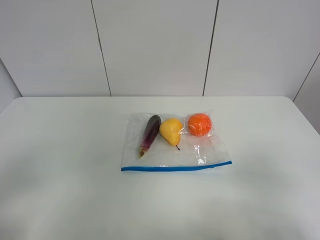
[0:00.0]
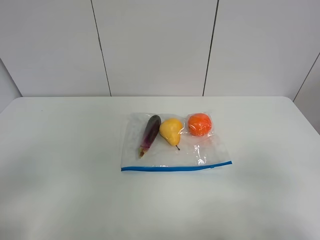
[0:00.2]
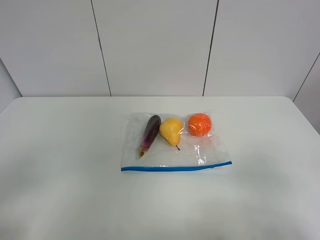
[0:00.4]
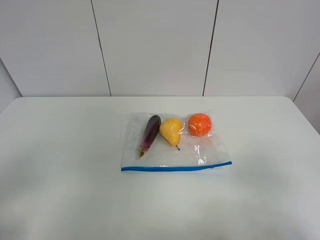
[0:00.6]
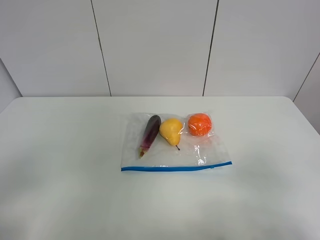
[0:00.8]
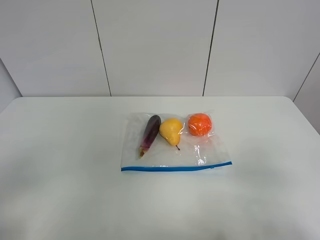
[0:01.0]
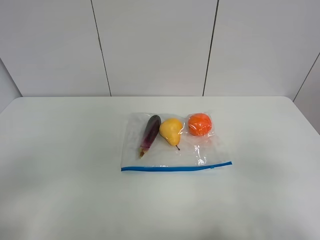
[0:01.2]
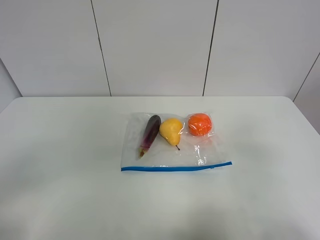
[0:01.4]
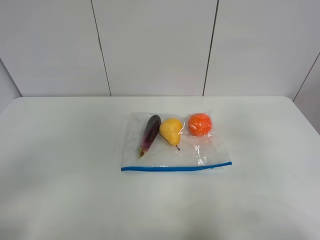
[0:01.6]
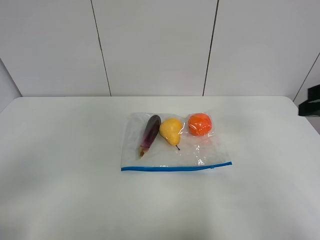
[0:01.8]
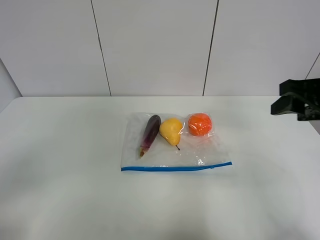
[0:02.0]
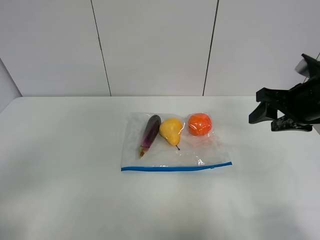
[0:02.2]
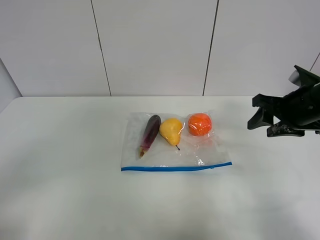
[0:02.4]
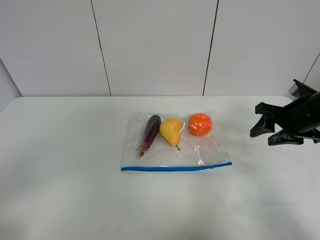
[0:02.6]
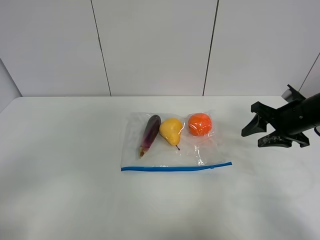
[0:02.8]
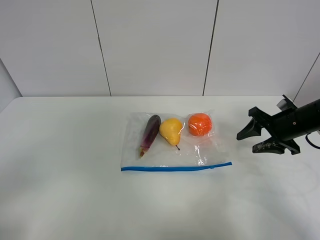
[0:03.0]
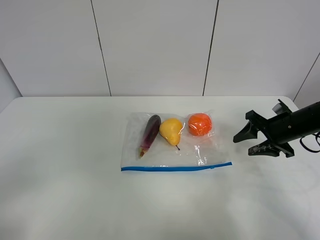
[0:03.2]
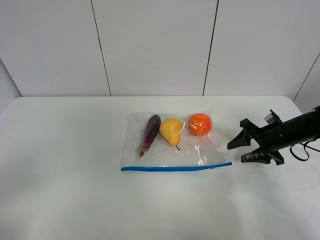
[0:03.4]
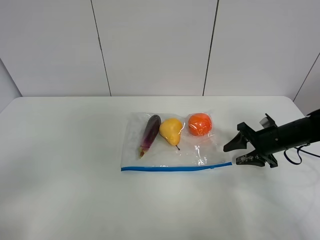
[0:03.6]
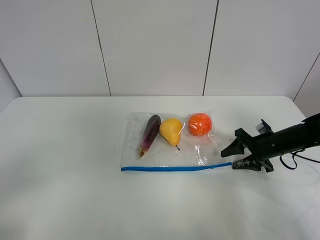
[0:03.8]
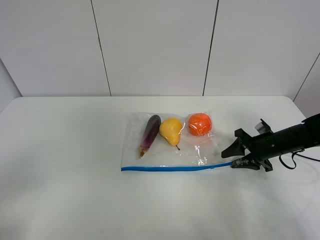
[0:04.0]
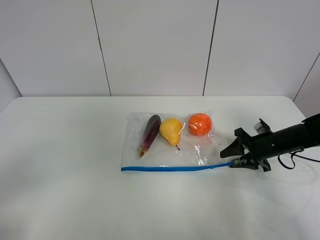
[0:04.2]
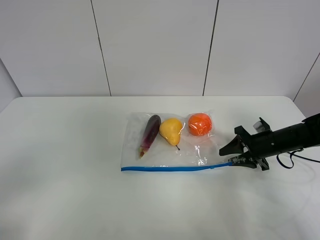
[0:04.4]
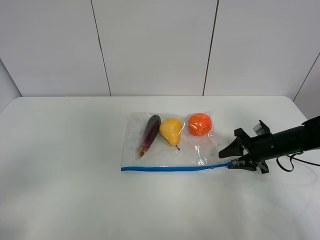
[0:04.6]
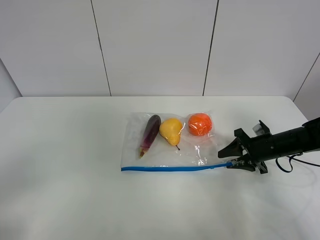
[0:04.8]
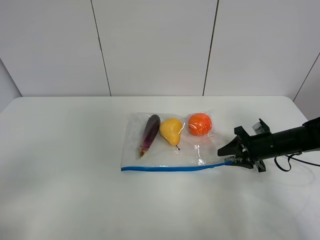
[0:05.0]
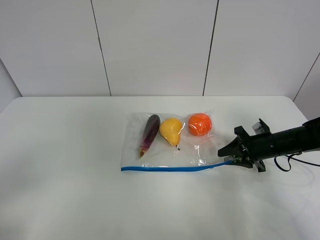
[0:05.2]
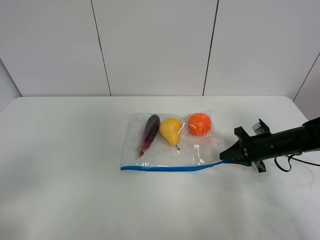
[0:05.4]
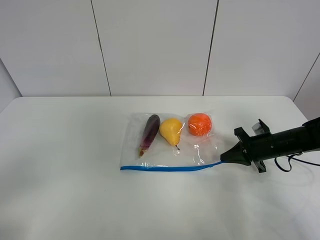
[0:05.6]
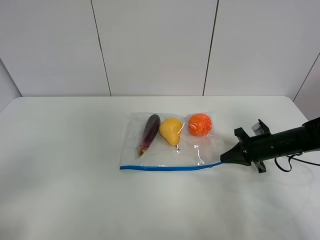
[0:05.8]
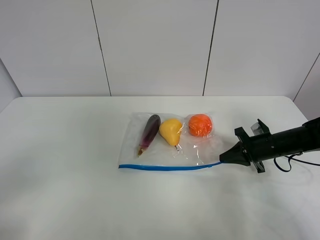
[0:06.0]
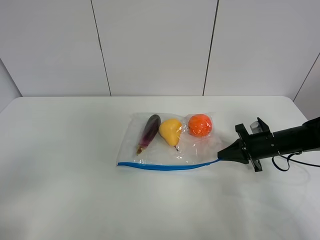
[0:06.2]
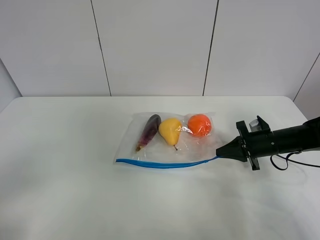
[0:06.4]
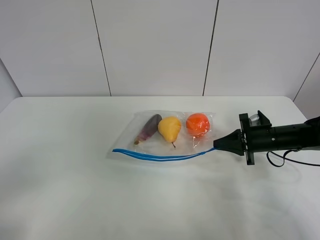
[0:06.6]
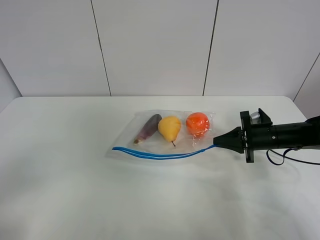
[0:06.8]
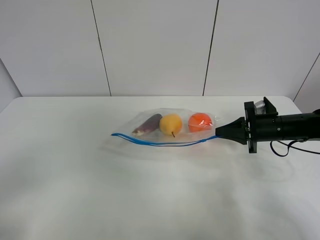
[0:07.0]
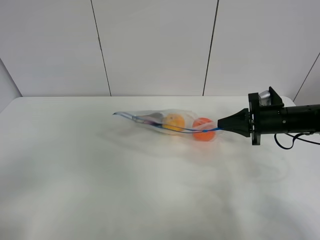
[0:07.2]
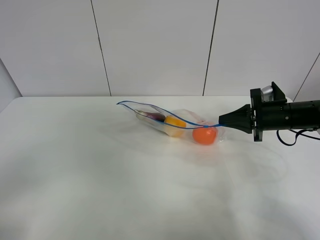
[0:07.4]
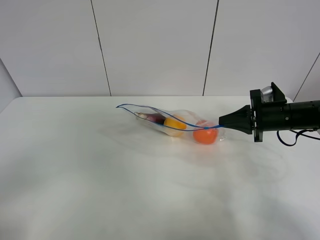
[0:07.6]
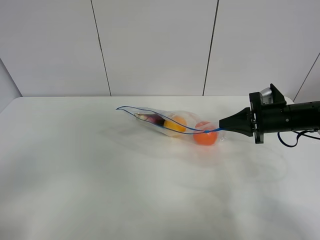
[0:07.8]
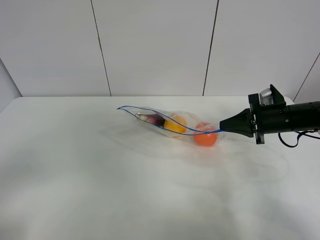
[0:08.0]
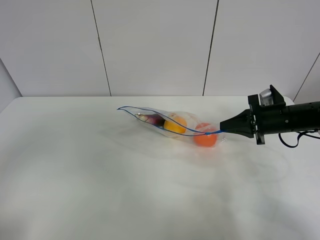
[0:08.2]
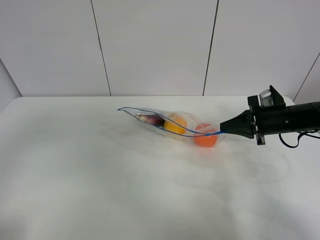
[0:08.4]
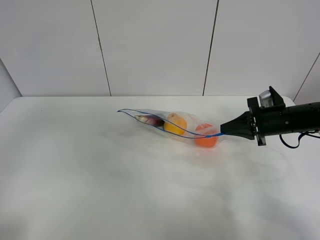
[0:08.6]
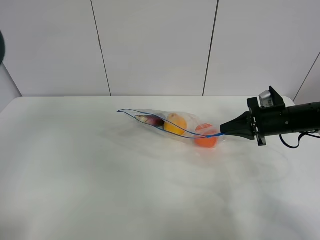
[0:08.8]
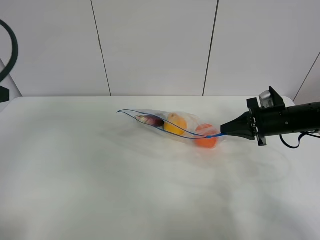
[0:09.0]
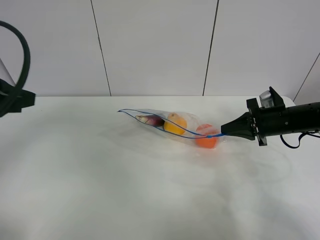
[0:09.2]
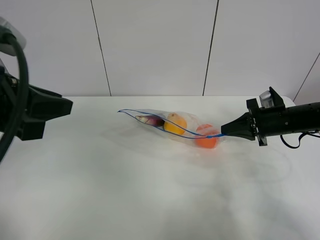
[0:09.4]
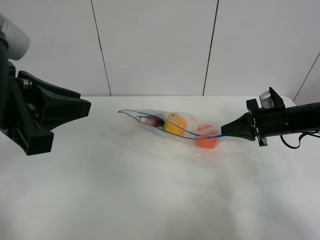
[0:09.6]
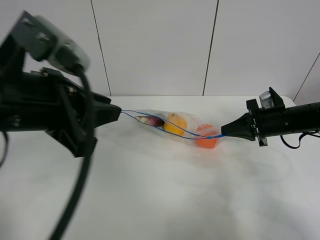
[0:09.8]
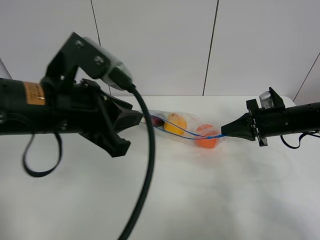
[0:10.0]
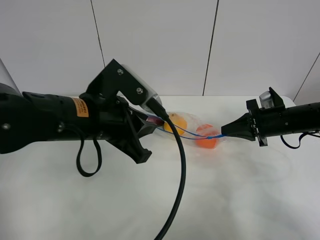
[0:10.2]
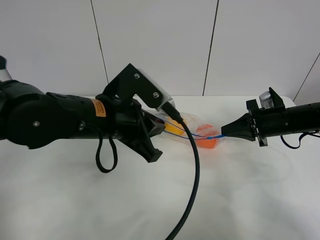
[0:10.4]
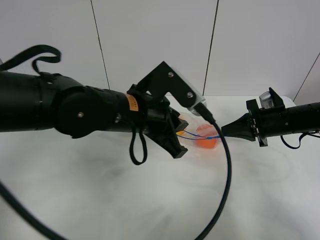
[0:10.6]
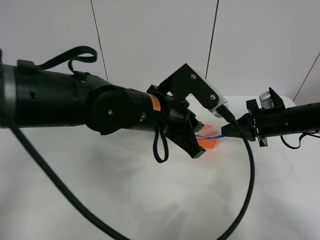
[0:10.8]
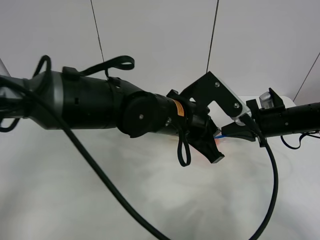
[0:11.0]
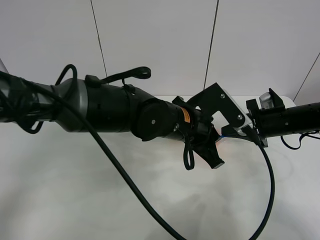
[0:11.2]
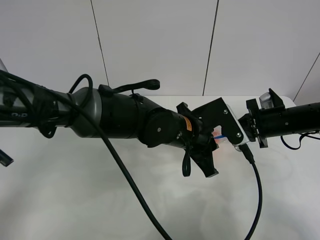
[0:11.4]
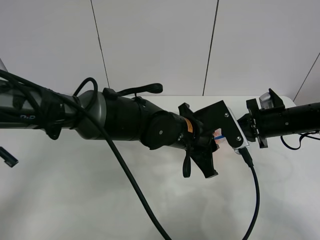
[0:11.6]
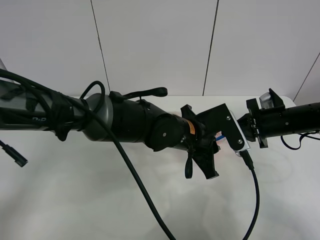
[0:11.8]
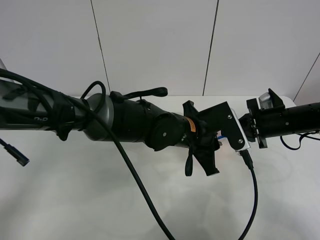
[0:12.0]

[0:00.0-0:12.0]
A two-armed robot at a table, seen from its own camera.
Step, 0:00.0 to 0:05.6: Grasp the fruit bag with right gripper.
Step, 0:05.8 to 0:07.4: Lift the fruit bag with your right gripper.
0:00.0 to 0:01.6: The right gripper goes some 15 cm forward.
0:01.6 to 0:03.0: The right gripper is displaced forward and downward by some 25 cm.
0:03.0 to 0:04.4: The right gripper is displaced downward by roughly 10 cm.
0:04.4 to 0:06.0: The right gripper closes up.
0:06.0 to 0:07.6: The right gripper travels upward by approximately 10 cm.
0:07.6 to 0:09.0: The left gripper goes some 20 cm forward.
0:09.0 to 0:10.4: The left gripper heads to the right and downward, covering approximately 25 cm.
0:10.4 to 0:12.0: The left gripper moves to the right and downward, roughly 15 cm.

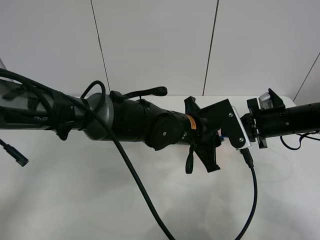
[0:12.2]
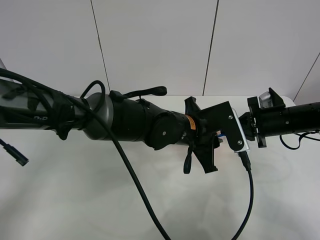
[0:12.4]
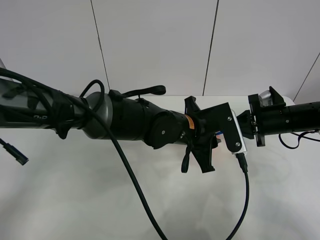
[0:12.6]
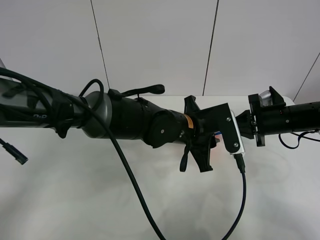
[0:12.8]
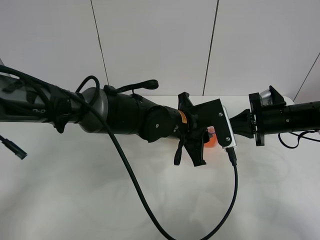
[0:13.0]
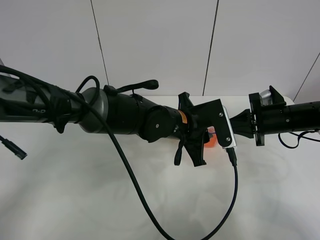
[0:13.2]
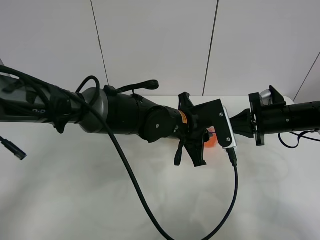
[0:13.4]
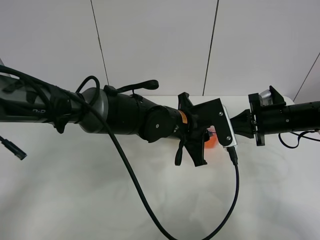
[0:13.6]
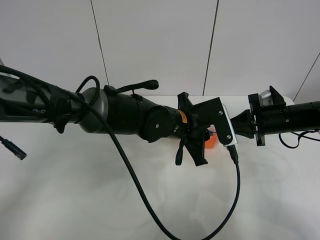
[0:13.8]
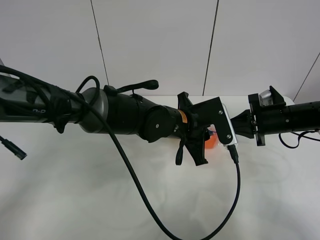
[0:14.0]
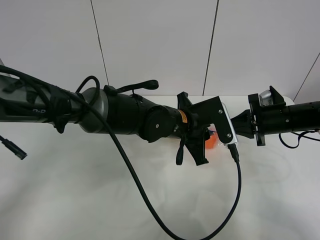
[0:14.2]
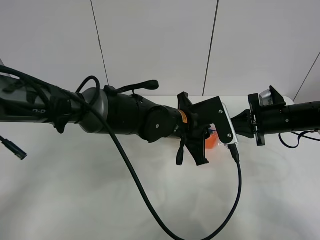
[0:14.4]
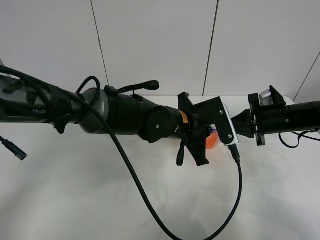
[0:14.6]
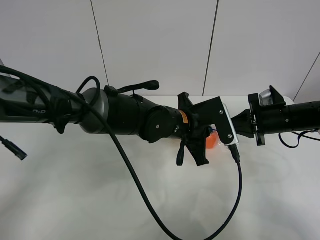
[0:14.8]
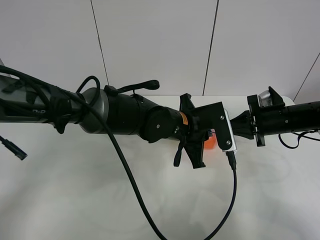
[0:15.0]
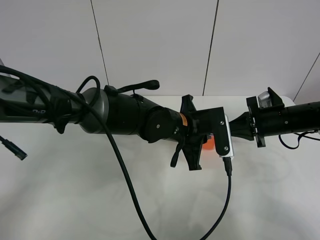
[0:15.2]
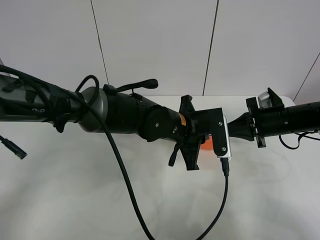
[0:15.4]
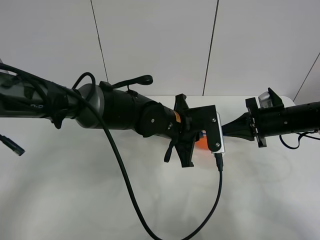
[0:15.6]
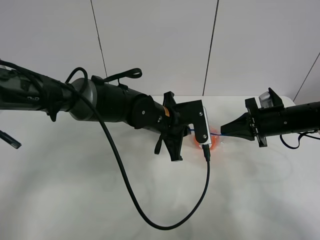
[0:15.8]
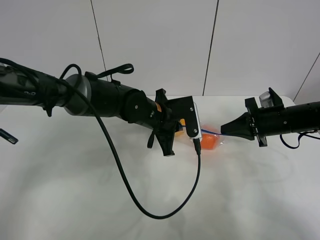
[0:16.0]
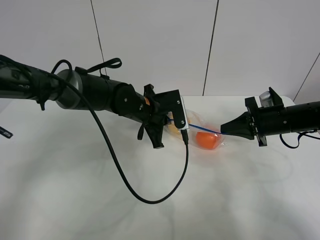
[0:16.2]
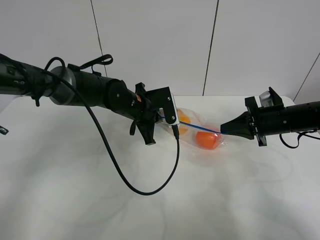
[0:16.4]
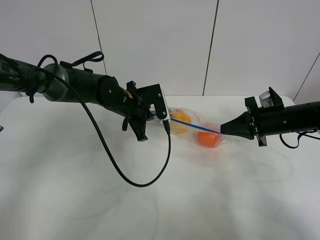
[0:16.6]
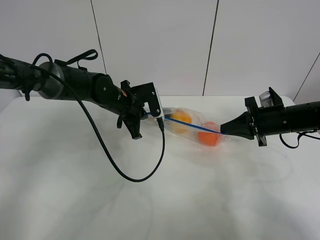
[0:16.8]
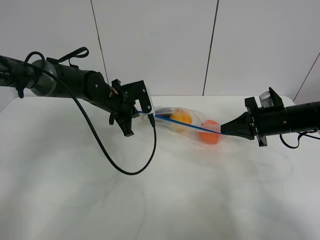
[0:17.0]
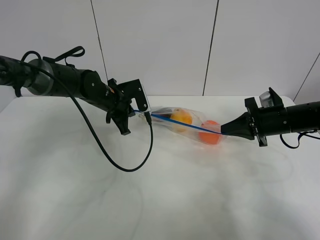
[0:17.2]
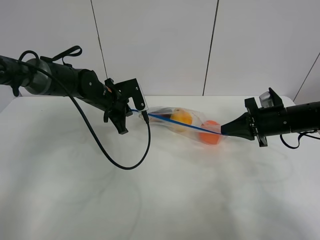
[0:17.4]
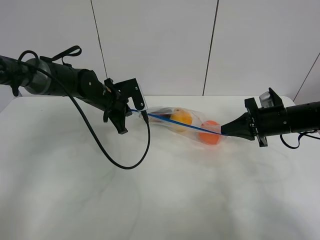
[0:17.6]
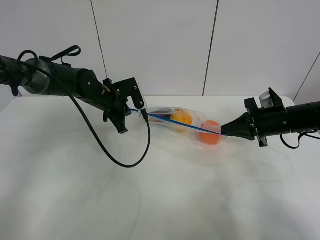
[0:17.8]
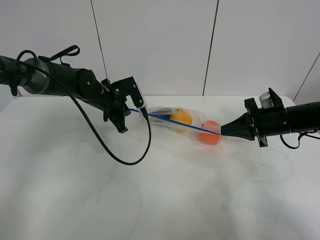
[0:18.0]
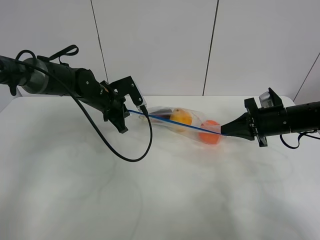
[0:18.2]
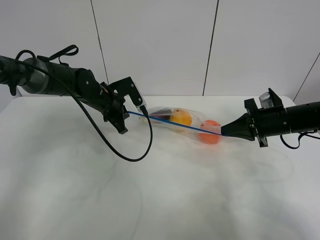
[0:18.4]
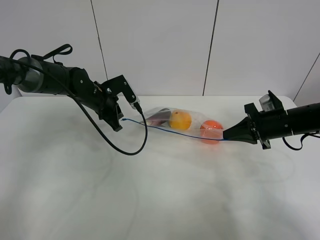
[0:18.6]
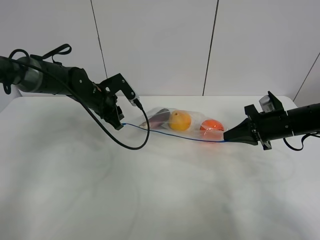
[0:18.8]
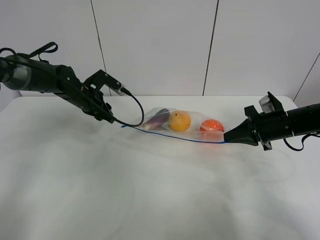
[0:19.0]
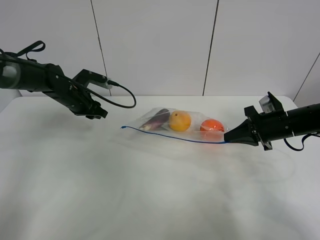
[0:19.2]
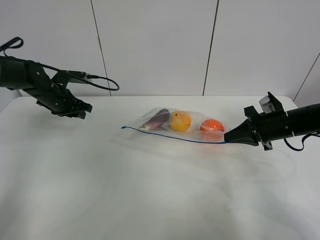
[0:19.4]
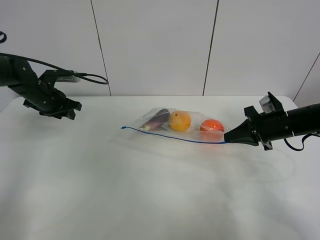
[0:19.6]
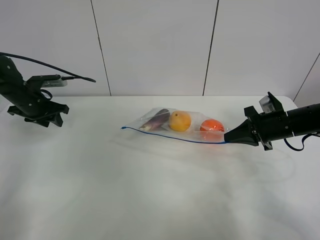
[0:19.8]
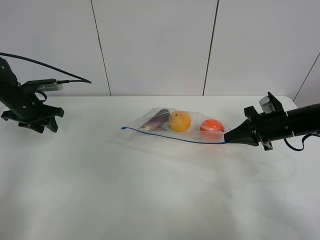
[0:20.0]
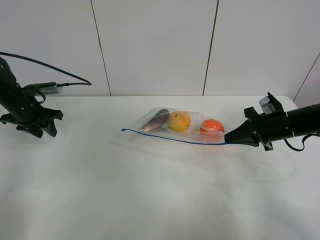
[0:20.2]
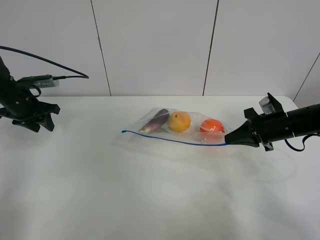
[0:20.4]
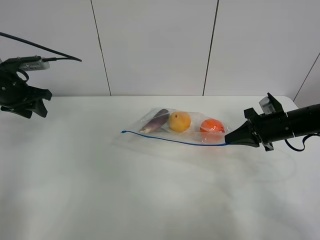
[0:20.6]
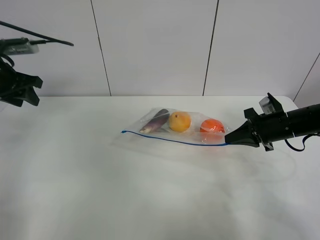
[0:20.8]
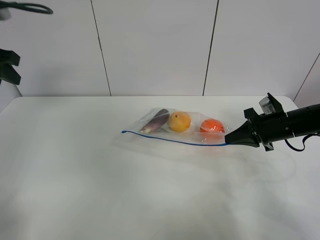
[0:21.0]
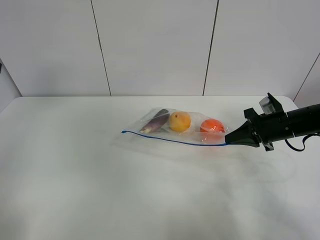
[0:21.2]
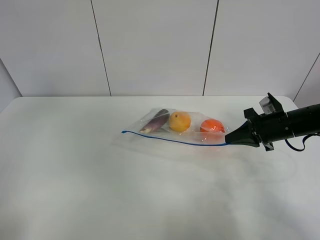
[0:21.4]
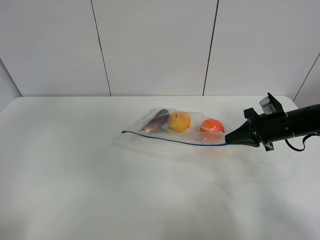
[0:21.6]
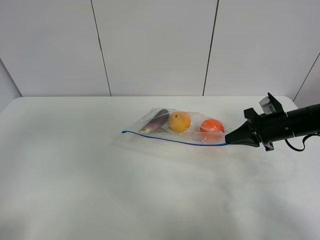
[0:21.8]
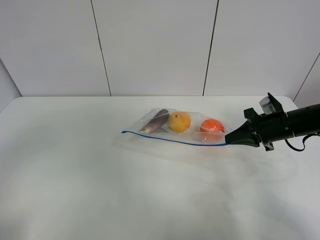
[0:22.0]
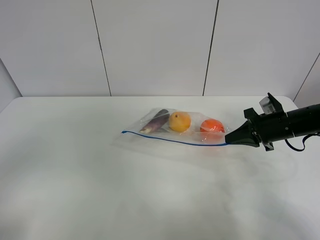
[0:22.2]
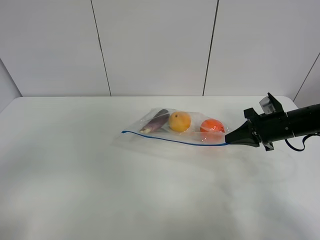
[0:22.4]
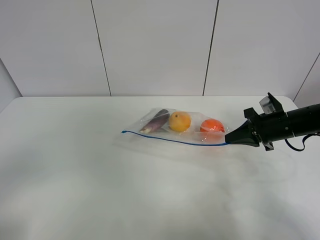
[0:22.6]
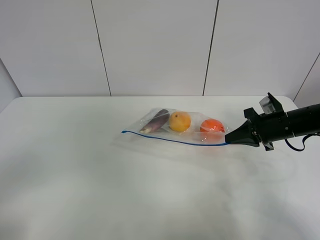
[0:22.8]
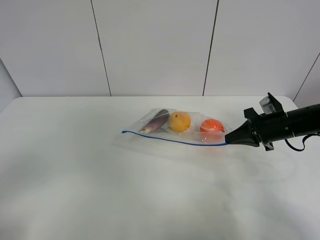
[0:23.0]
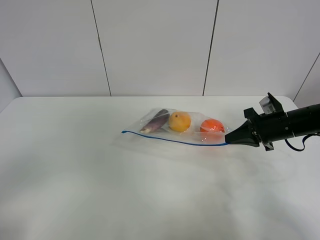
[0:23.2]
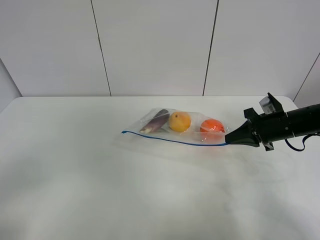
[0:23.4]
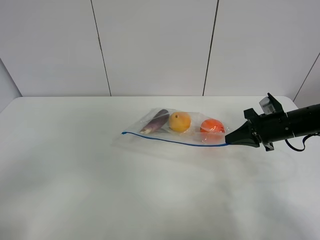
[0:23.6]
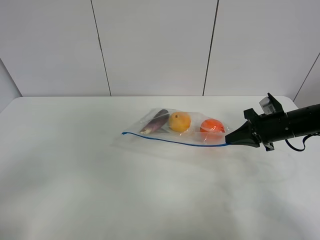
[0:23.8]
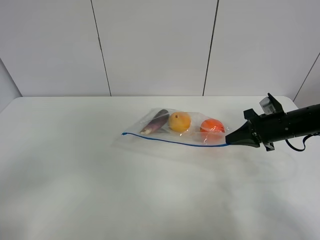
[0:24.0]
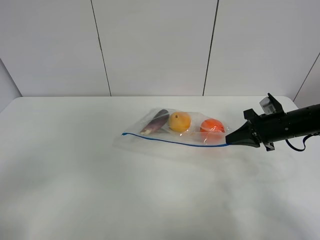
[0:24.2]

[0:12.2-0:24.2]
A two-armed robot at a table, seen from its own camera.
Step, 0:12.2 to 0:18.8: Pull the fruit bag with left gripper.
0:12.2 to 0:13.8: The grippers move only a little.
0:13.8 to 0:15.2: The left gripper closes its fingers.
0:15.2 to 0:16.6: The left gripper shifts about 15 cm to the left and forward.
0:16.6 to 0:18.2: The left gripper is displaced to the left by approximately 5 cm.
0:18.2 to 0:19.8: The left gripper shifts some 20 cm to the left, and opens up.
0:19.8 to 0:21.2: The left gripper heads upward and backward, covering some 25 cm.
0:22.6 to 0:24.2: The grippers make only small movements.
